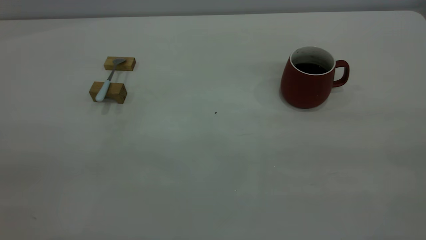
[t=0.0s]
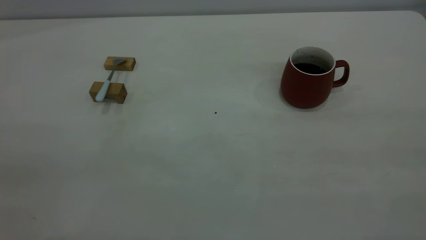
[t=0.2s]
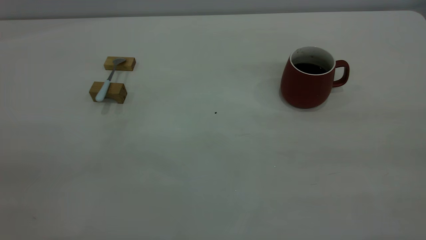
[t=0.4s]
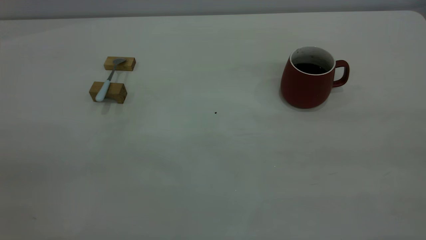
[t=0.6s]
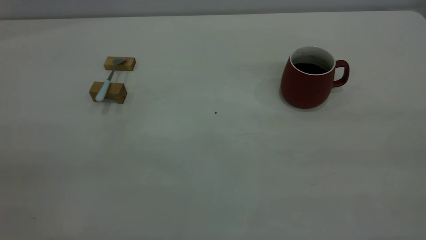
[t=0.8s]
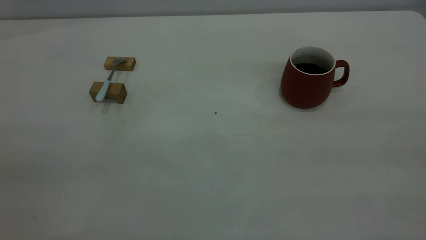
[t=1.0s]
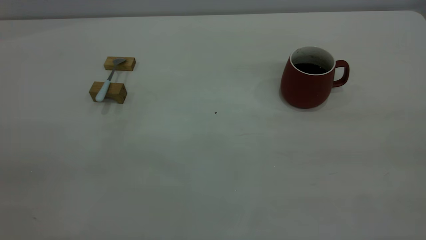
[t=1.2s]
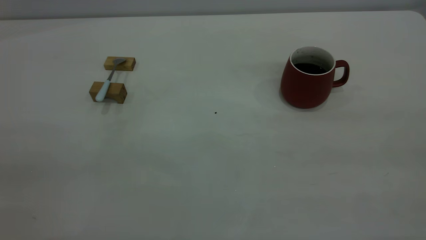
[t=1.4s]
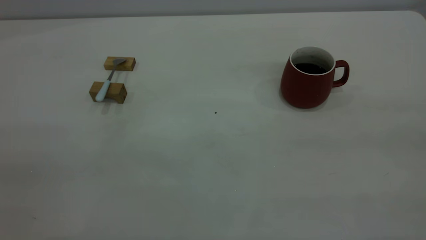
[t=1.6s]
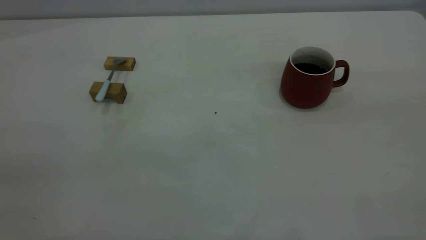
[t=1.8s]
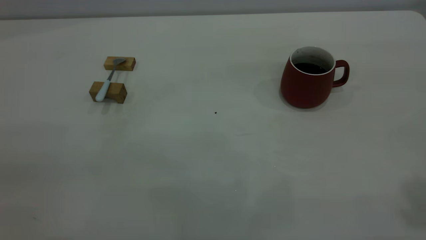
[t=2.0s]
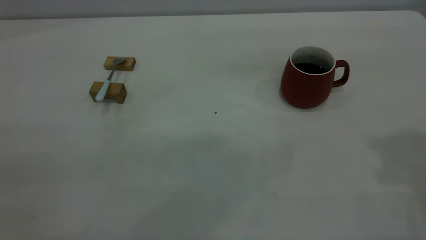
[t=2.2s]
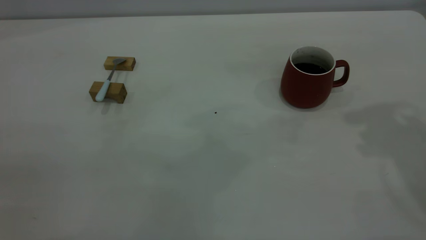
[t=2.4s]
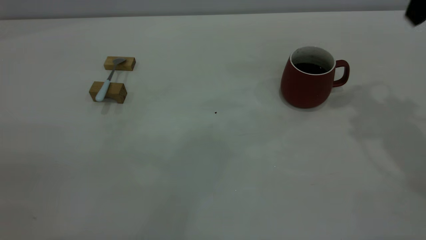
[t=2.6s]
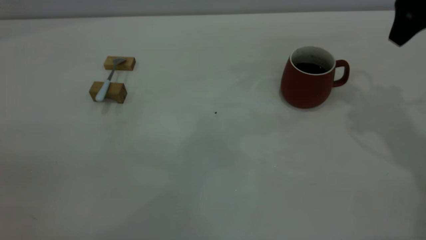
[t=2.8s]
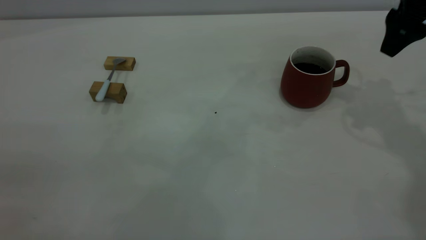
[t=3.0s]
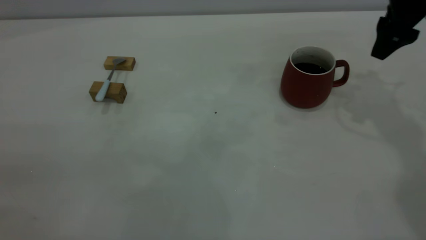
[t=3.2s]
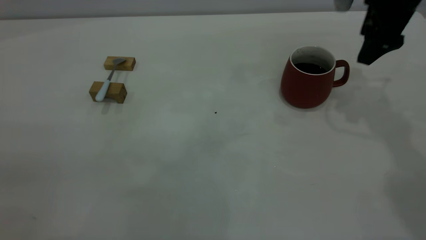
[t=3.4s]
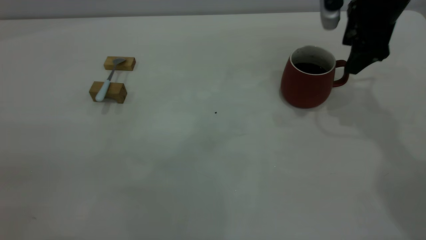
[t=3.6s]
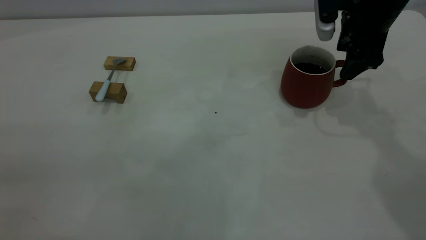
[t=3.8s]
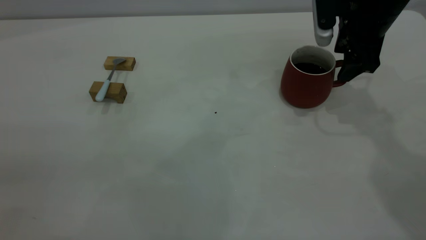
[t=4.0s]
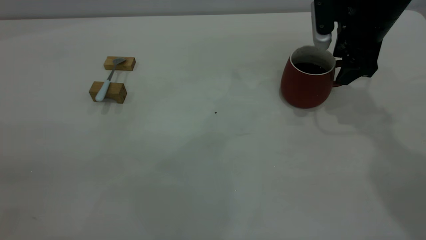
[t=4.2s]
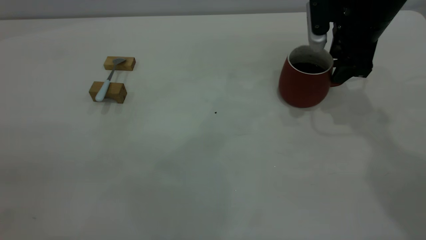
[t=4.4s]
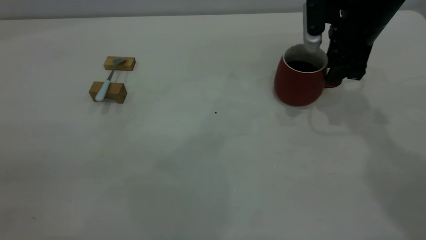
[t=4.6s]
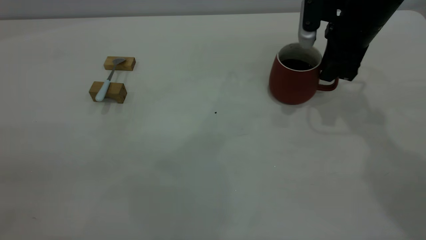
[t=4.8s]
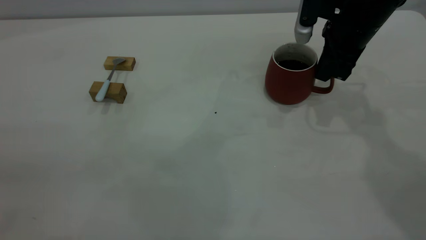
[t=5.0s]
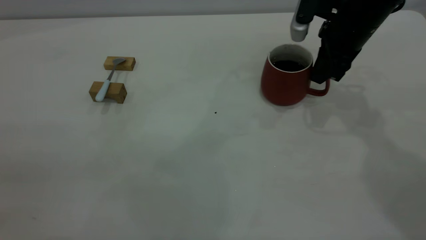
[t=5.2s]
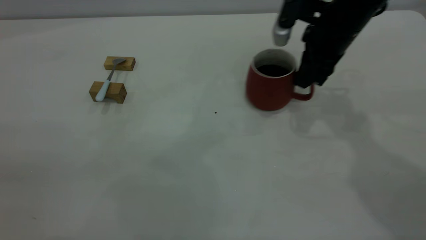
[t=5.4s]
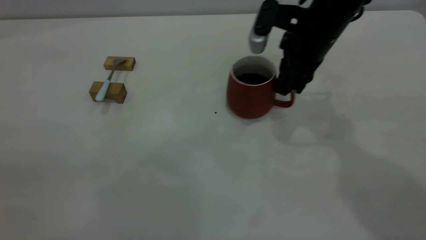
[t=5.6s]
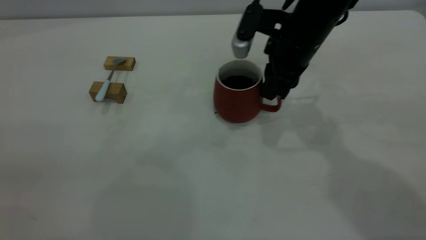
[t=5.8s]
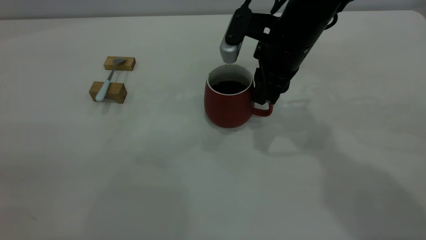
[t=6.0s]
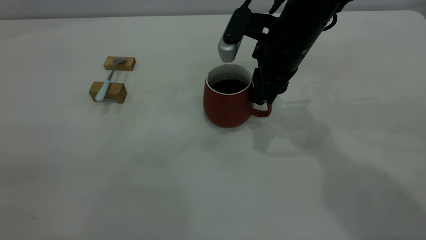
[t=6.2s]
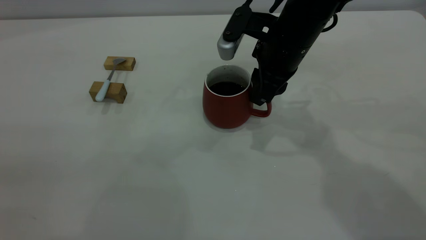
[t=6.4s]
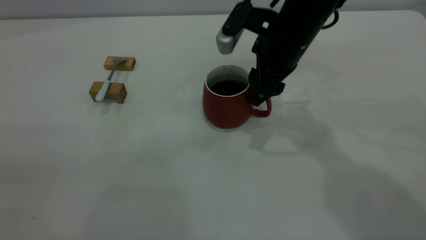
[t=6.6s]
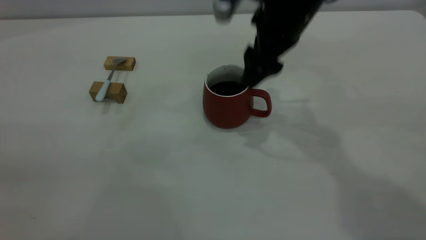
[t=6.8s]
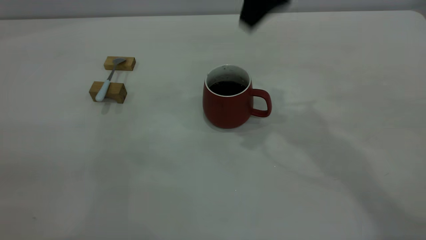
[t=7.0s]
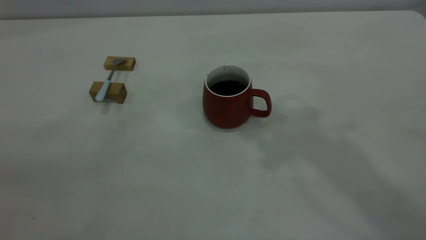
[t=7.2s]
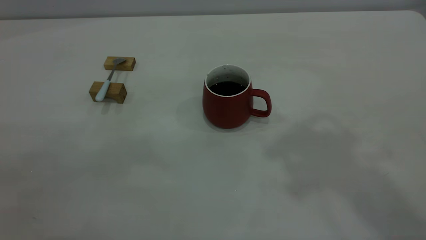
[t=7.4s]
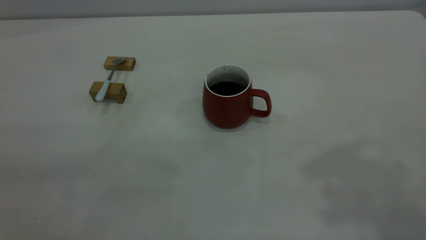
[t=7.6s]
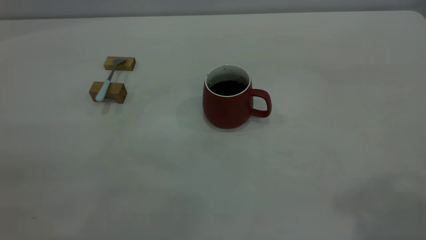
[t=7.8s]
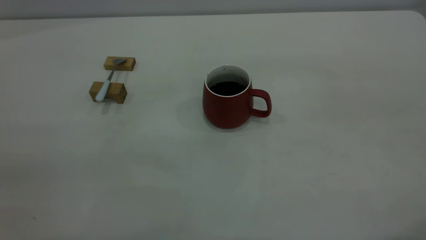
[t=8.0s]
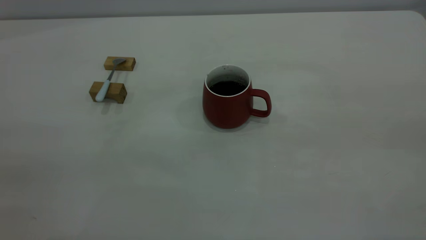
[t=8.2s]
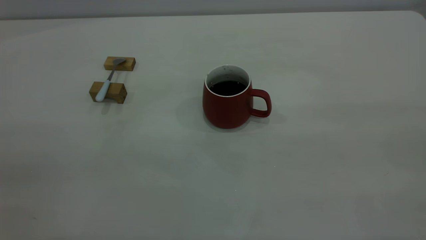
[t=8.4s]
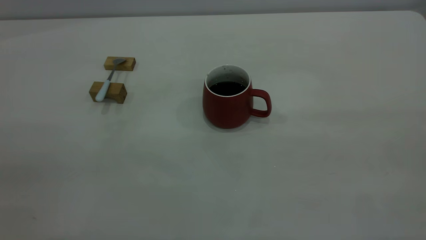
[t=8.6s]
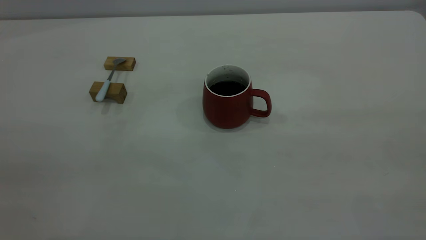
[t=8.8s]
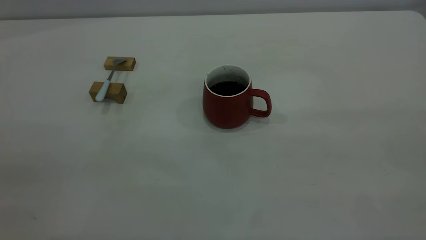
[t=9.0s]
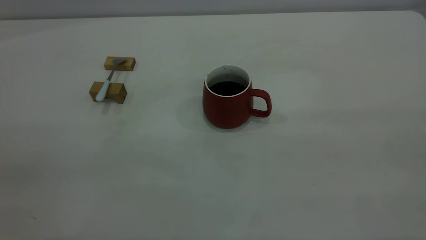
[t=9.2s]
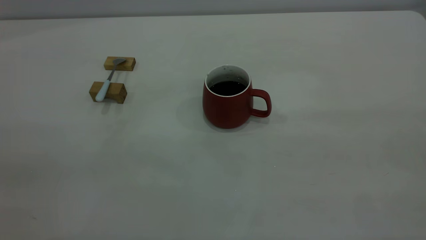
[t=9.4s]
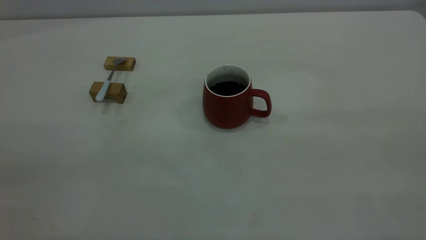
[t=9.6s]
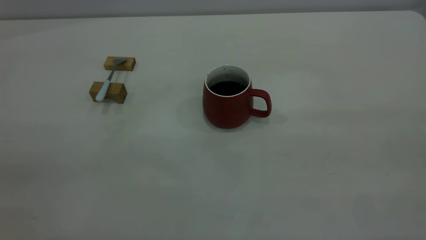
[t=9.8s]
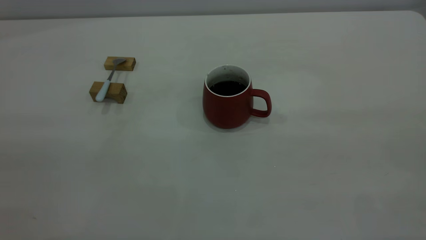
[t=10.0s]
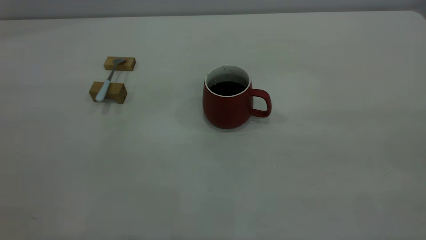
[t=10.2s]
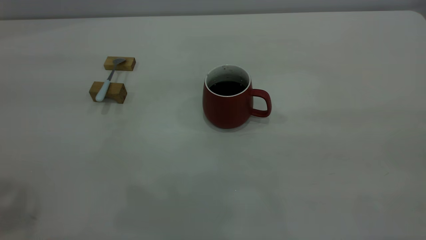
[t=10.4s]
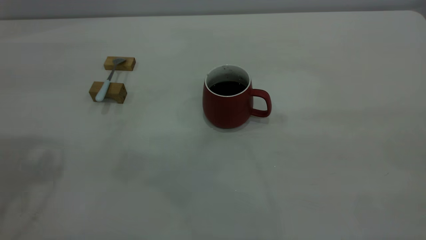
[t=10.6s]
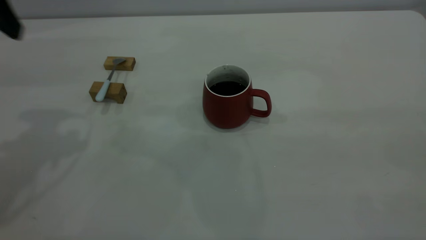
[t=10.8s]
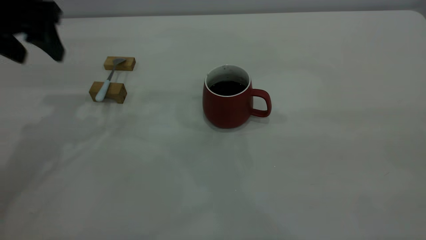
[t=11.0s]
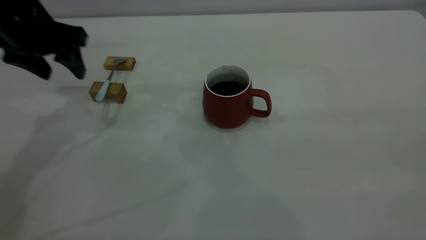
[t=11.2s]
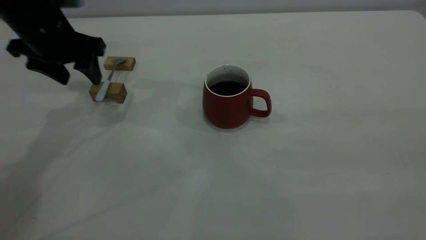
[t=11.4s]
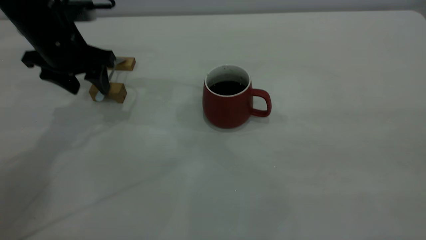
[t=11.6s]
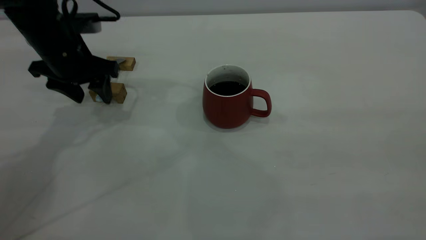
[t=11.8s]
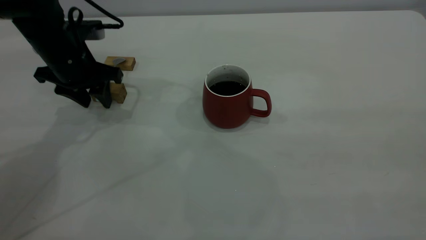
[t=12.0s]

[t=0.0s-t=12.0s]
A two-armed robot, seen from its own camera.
Step, t=0.0s to t=6.8s: Move the cup with coffee to the center of view.
t=1.6s to t=3.0s: The right gripper heads forward and downward, covering about 40 cm, and opens.
t=3.0s to t=4.4s: The right gripper is displaced downward and to the left by some 10 cm.
t=4.4s to t=6.0s: The right gripper goes some 10 cm to the left, and closes up.
t=6.0s to t=7.6s: The right gripper shifts some 40 cm upward and backward, and opens its fingers.
t=10.4s to t=12.0s: The left gripper is displaced downward and forward by about 35 cm, and closes.

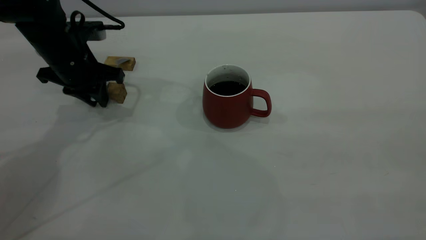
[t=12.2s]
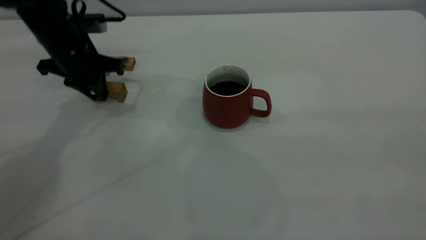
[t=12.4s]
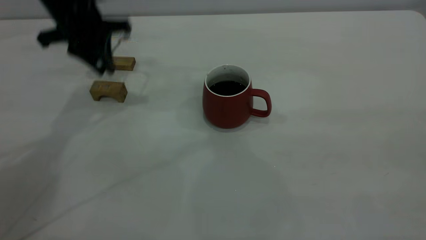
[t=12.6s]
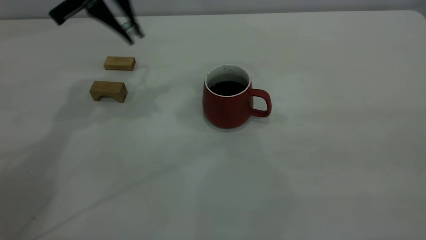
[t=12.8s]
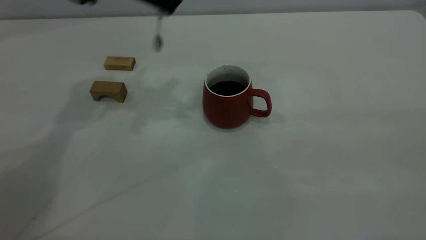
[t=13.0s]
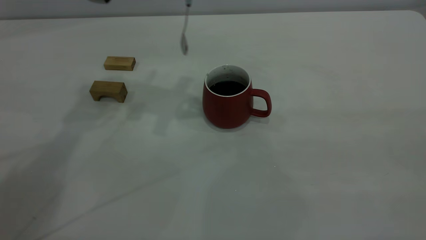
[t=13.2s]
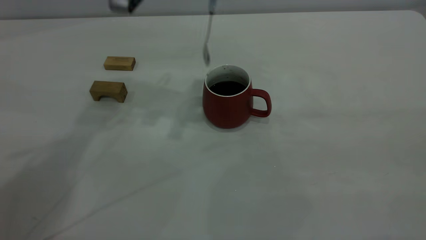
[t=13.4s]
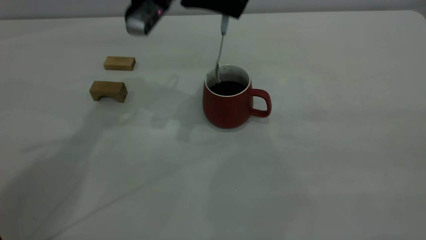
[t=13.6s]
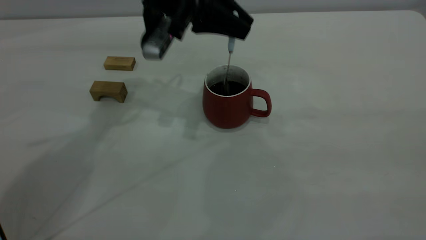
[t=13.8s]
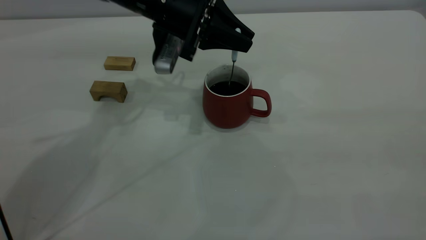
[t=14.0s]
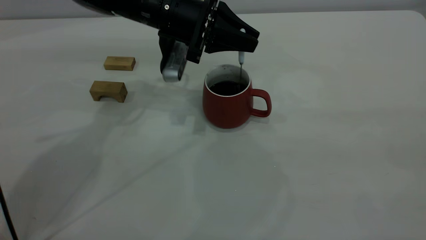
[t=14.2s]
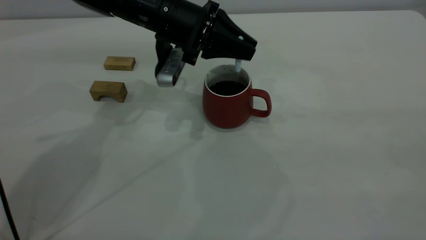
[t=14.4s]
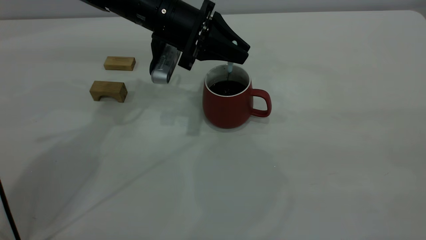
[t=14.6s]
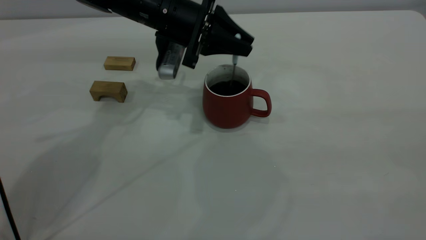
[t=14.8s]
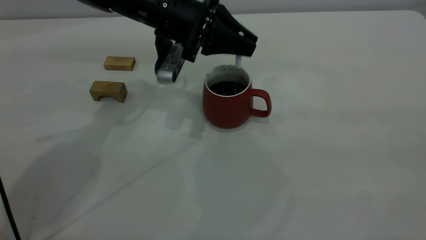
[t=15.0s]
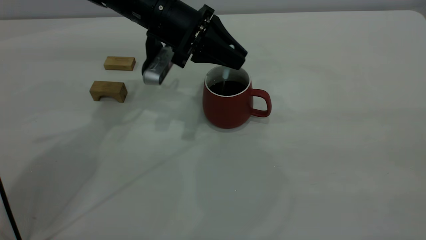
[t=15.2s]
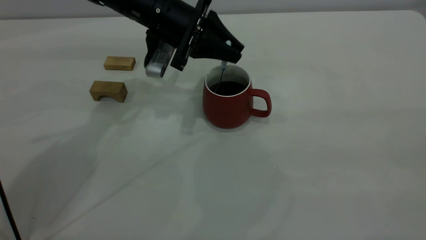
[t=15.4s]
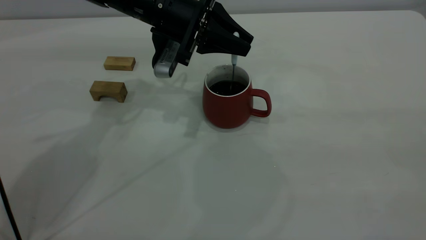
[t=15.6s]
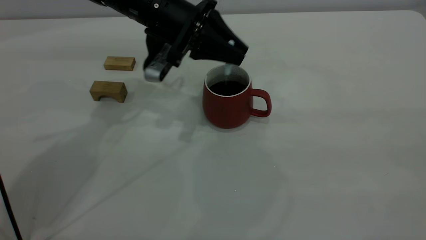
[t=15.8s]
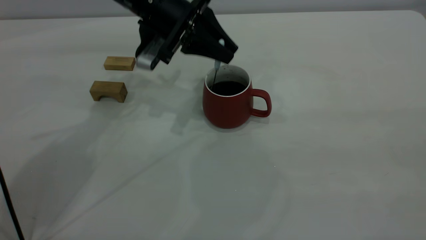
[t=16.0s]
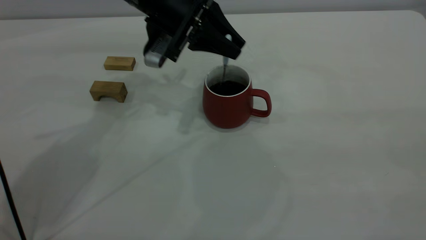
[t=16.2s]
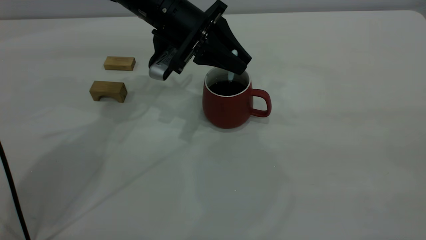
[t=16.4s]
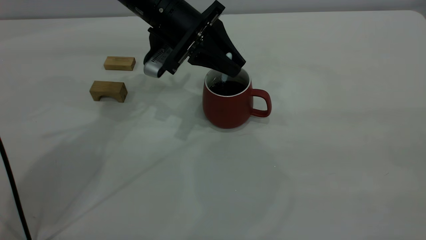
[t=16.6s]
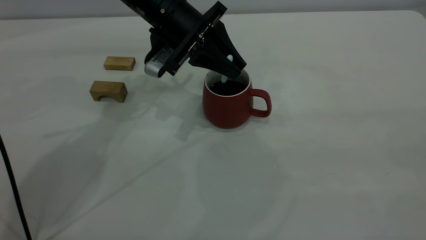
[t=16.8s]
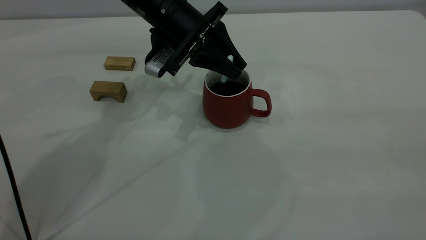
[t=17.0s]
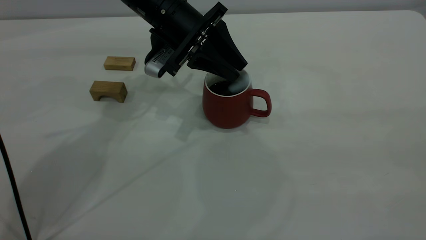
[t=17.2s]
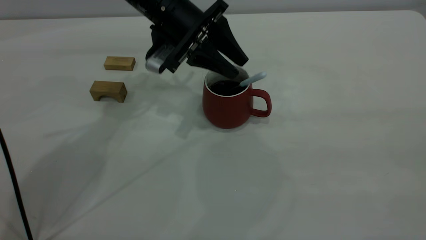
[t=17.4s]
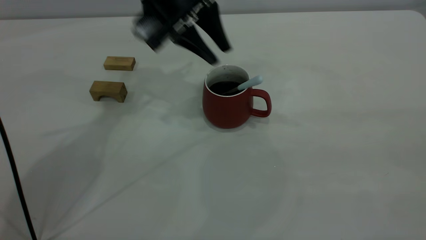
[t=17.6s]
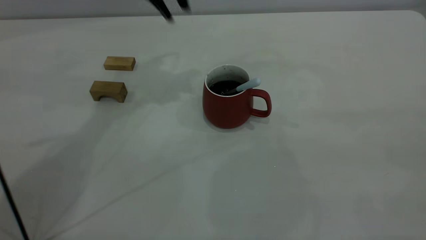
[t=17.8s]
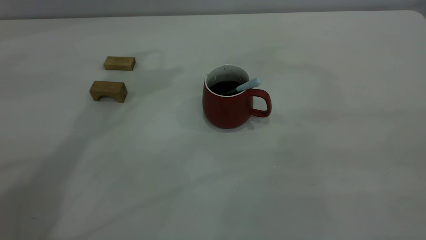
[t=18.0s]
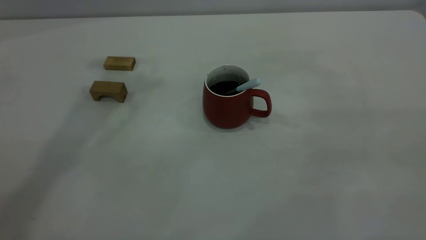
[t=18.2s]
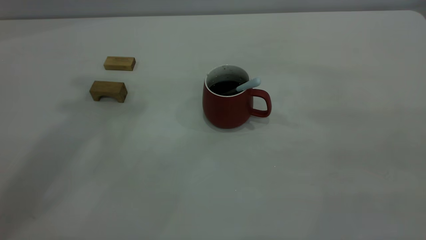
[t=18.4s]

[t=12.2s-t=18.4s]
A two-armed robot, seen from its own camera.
Step, t=12.8s to t=17.6s: Stir the coffee in the cup.
t=12.2s to t=13.8s: The left gripper heads to the right and upward, covering some 15 cm; the right gripper closes its fingers.
t=13.8s to t=16.8s: The grippers stay close to where they were, moving slightly.
t=16.8s to t=18.4s: The left gripper is displaced upward by roughly 40 cm, and opens up.
